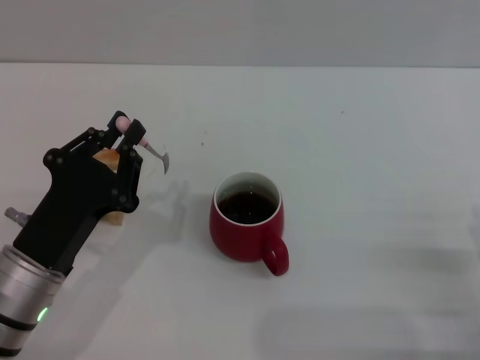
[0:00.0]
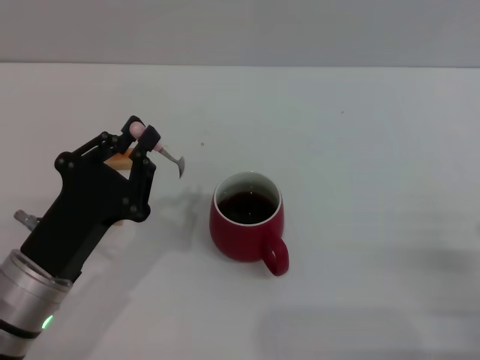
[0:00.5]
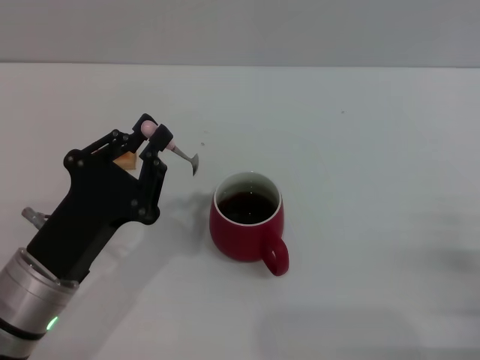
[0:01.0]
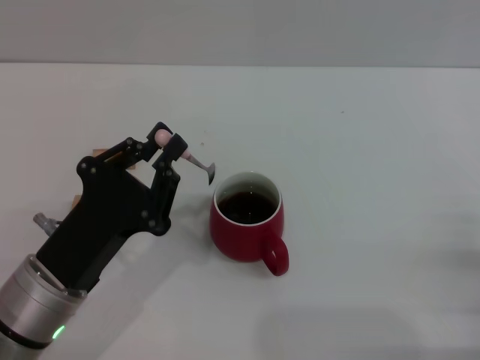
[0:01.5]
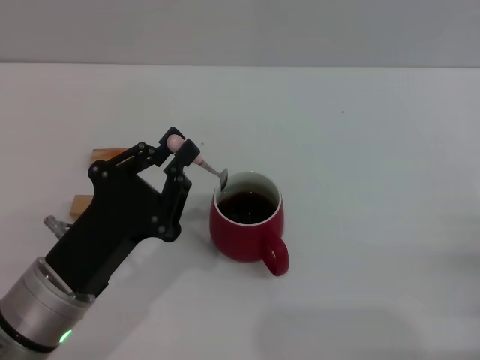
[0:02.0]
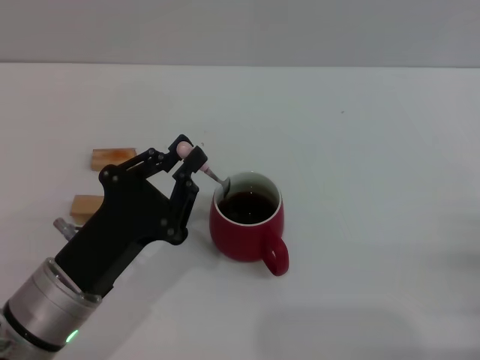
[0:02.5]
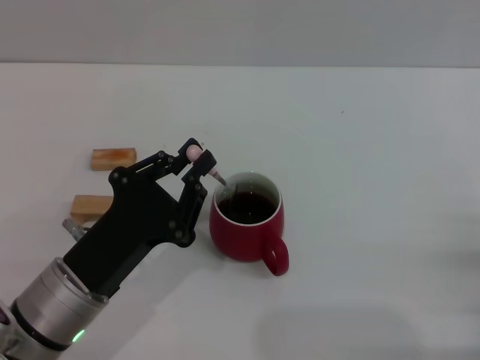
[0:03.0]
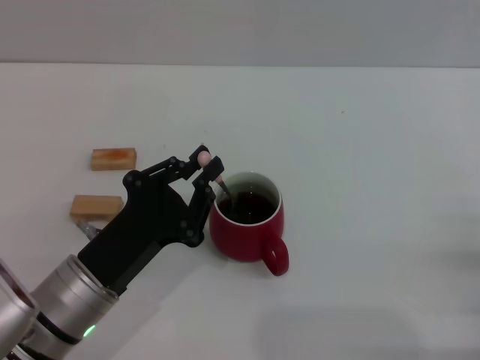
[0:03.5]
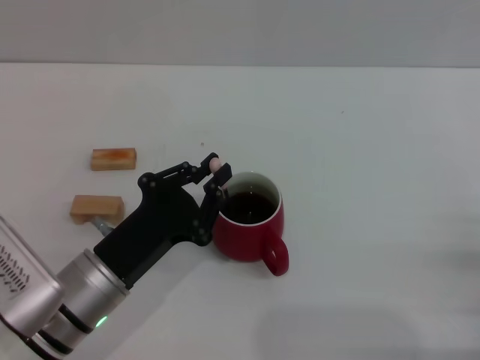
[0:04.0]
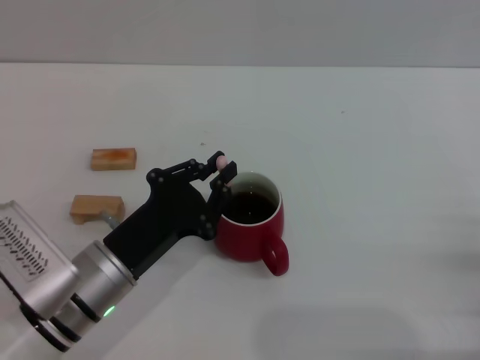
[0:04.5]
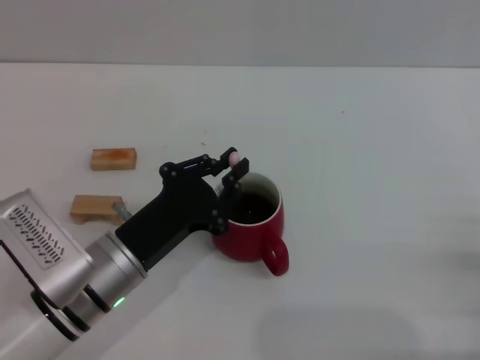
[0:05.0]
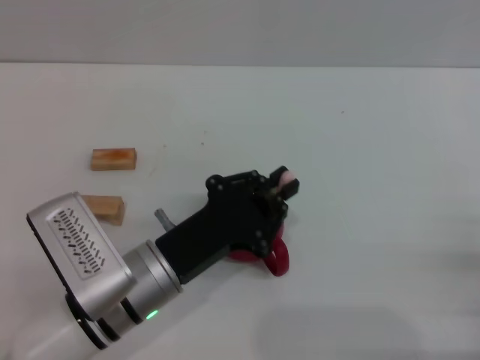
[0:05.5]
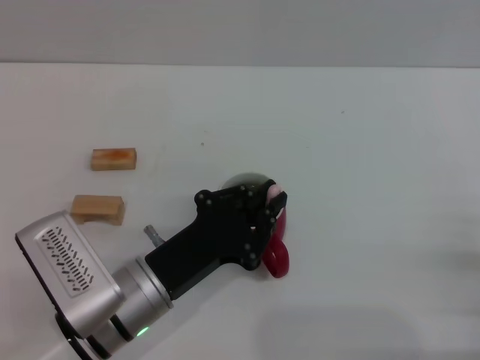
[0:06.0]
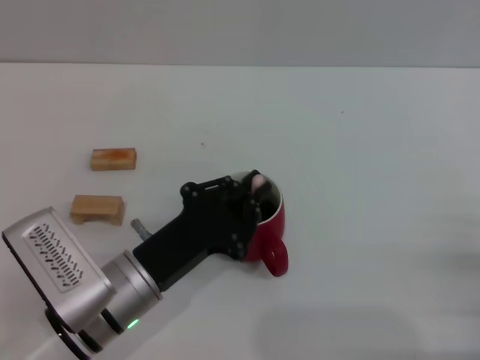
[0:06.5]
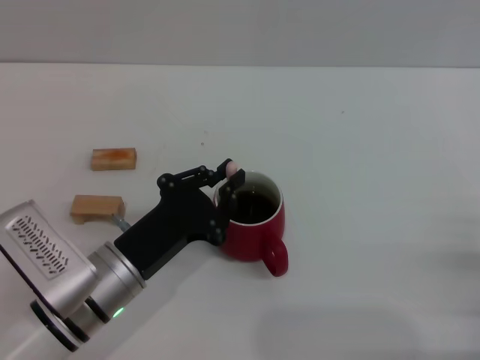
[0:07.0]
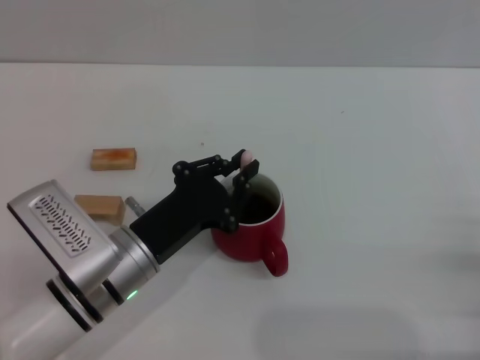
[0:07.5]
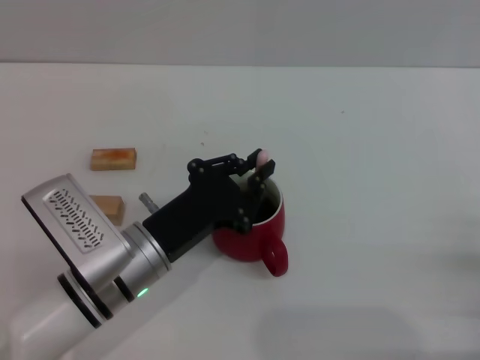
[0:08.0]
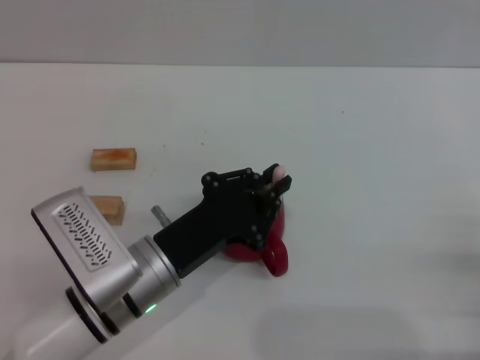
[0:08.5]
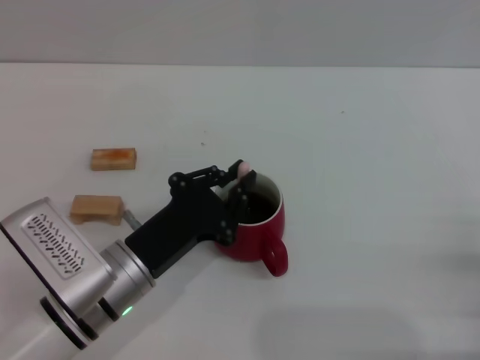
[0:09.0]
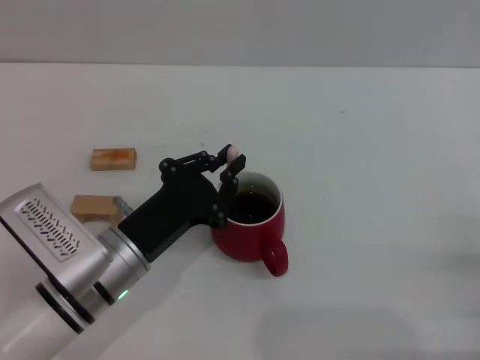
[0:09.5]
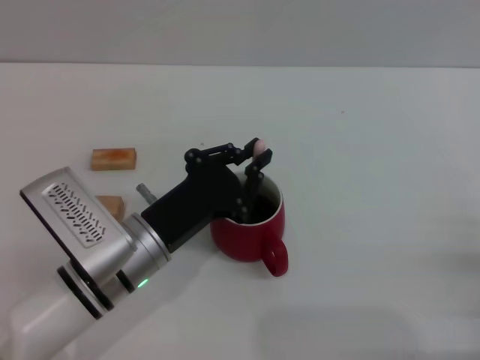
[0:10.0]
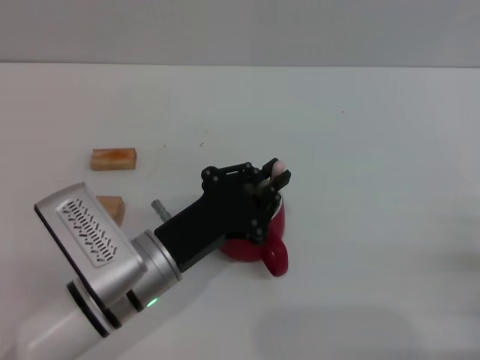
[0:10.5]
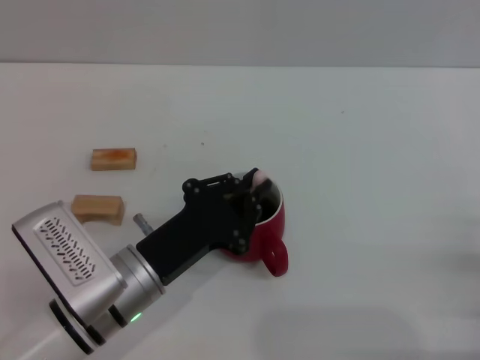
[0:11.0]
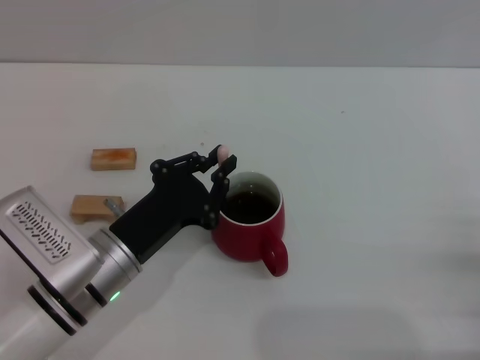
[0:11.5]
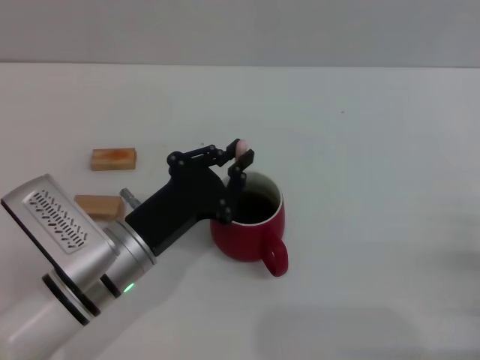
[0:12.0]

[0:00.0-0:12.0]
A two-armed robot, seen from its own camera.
Task of the whole recording: Move the red cup to the center, lift the pink spoon, stir it three times in the cup, and put the spoon into the cup.
0:00.0 to 0:04.0: There are only small adjustments of the grippers.
0:04.0 to 0:12.0: The grippers make only small movements.

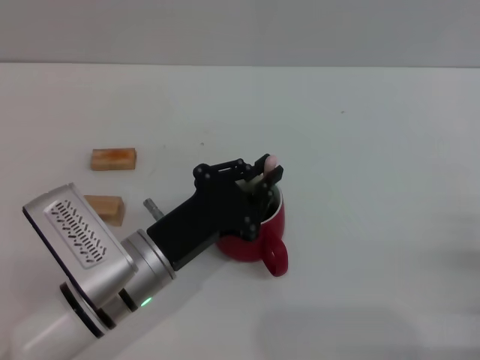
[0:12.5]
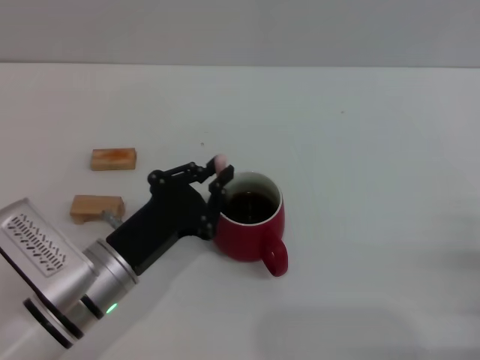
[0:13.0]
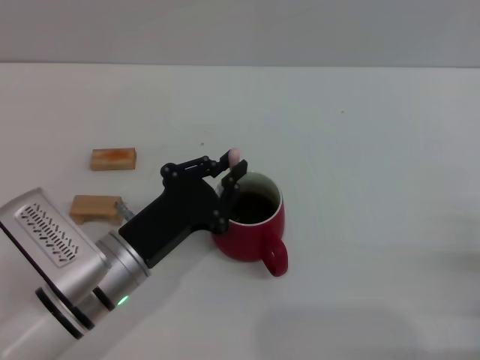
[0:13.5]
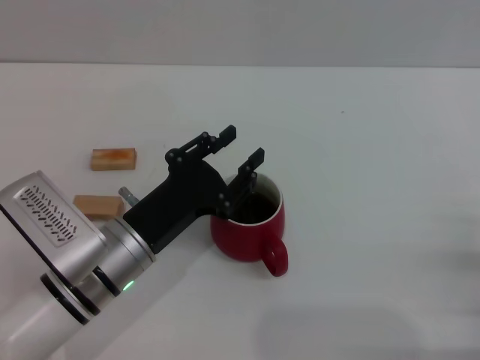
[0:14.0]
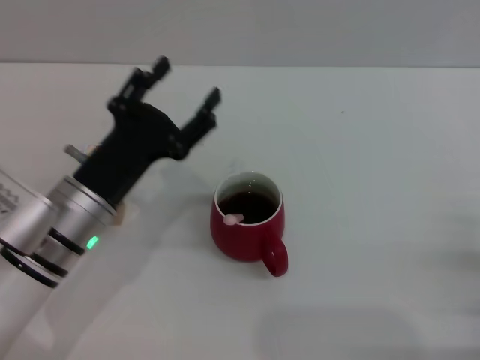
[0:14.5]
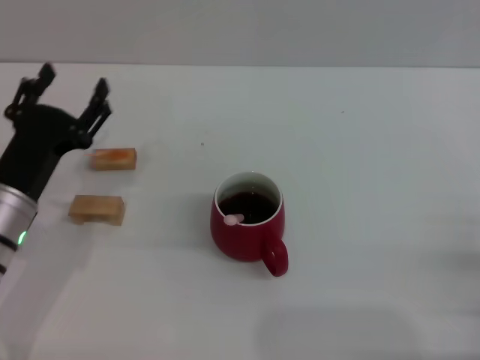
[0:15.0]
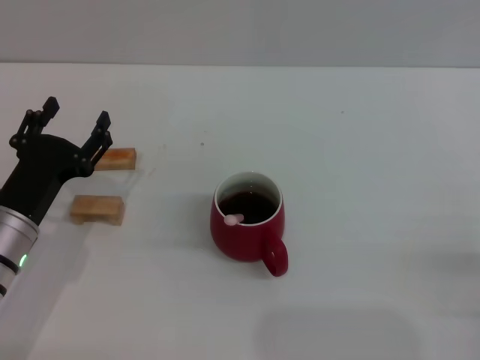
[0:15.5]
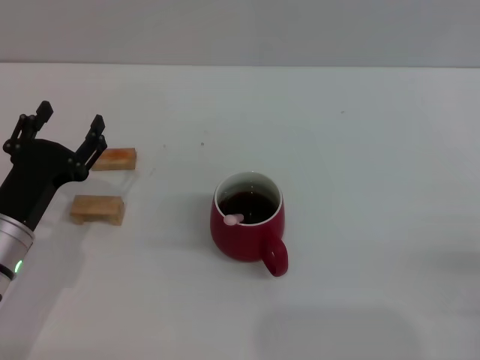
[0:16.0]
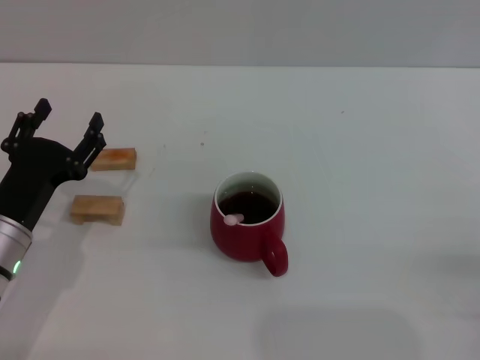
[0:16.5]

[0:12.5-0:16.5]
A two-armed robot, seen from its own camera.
Task of the whole recording: Move the red cup to the center, lift the pink spoon, stir it three times in the cup, and put the spoon into the cup.
0:12.5 to 0:14.5: The left gripper changes place by roughly 5 cm, and opens its fingers.
0:14.5 to 0:16.5: The left gripper goes some 5 cm to the left.
